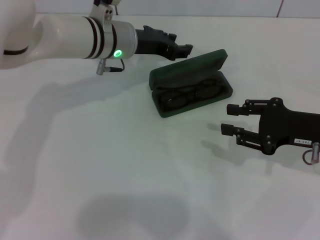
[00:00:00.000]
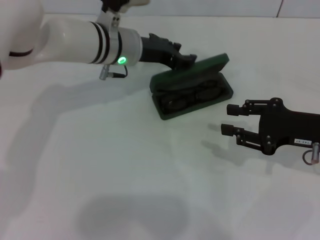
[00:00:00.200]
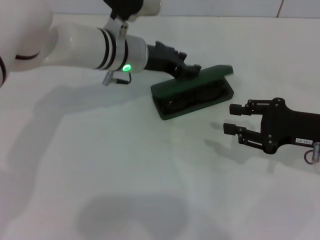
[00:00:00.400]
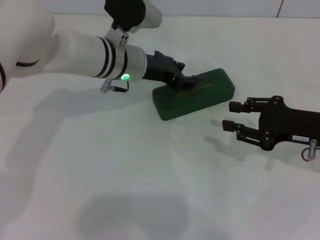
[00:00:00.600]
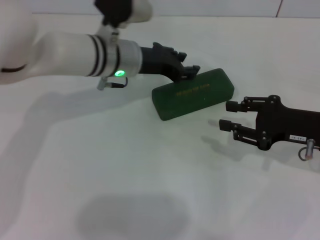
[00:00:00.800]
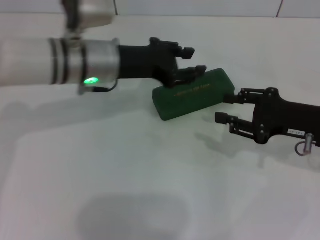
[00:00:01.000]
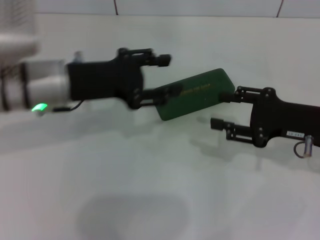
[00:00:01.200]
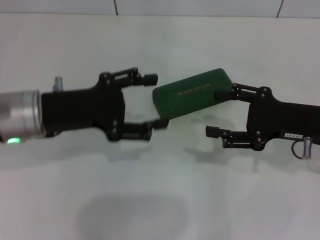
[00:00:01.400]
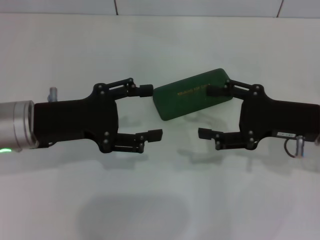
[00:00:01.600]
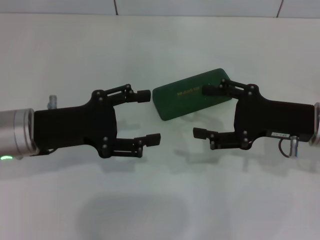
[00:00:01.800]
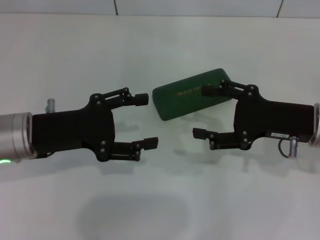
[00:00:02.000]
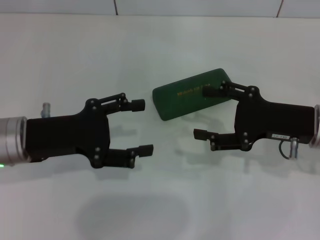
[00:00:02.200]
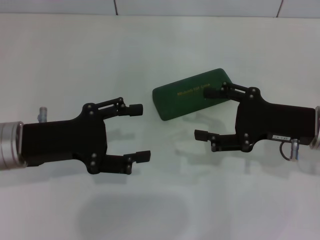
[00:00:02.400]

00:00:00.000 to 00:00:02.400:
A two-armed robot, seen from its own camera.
00:00:00.000 to 00:00:01.200: The left gripper travels backward and to the left by about 15 cm.
00:00:01.200 to 00:00:02.400: The left gripper goes some 5 cm backward, and opens up, while the right gripper opens its fingers.
